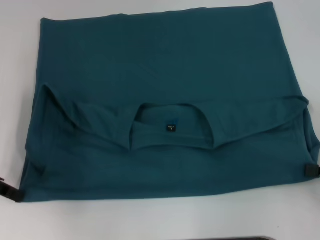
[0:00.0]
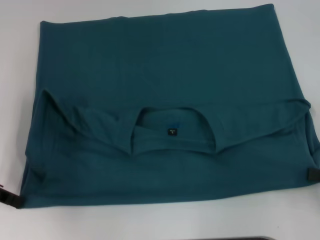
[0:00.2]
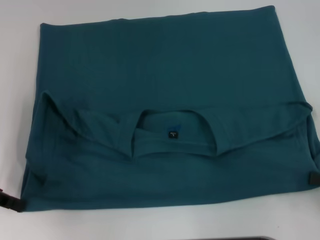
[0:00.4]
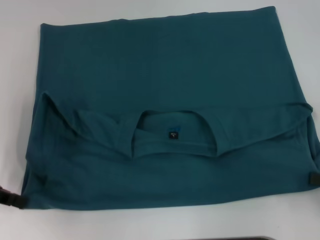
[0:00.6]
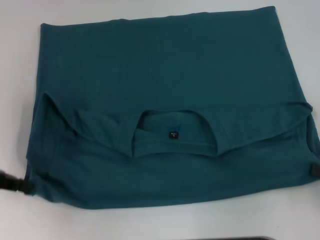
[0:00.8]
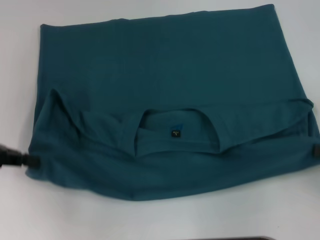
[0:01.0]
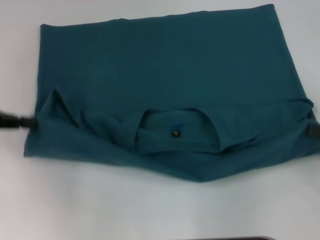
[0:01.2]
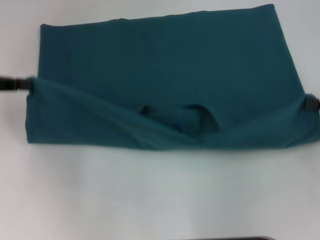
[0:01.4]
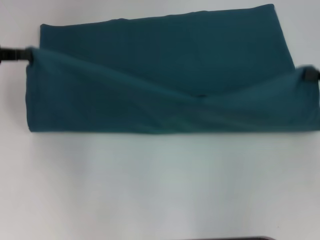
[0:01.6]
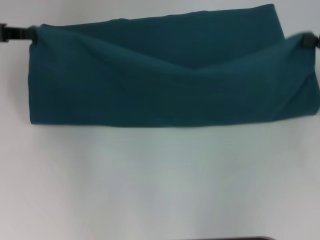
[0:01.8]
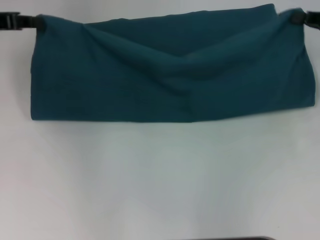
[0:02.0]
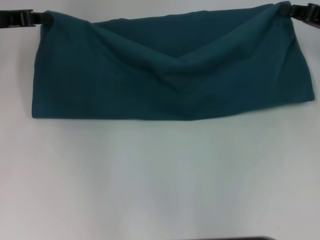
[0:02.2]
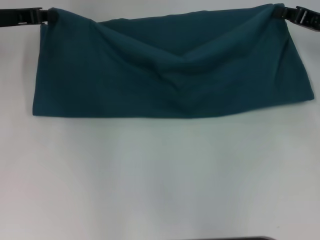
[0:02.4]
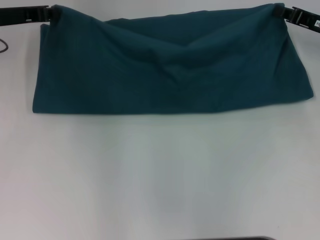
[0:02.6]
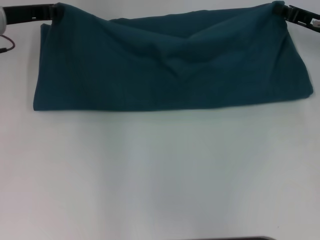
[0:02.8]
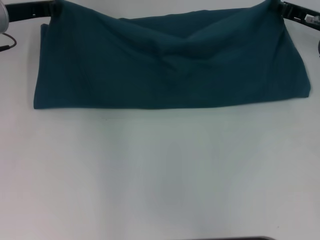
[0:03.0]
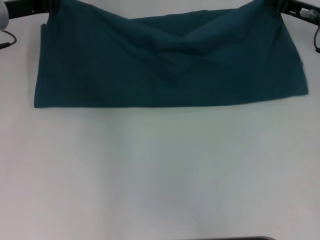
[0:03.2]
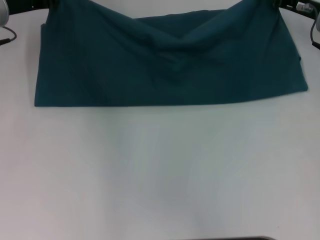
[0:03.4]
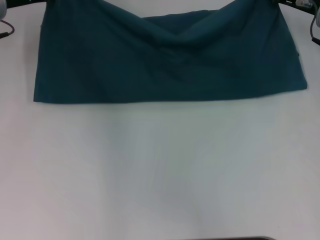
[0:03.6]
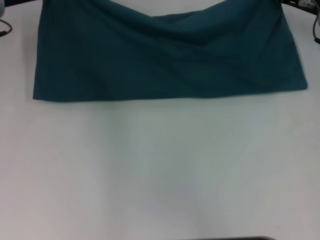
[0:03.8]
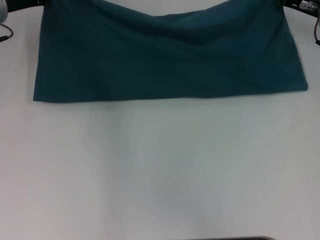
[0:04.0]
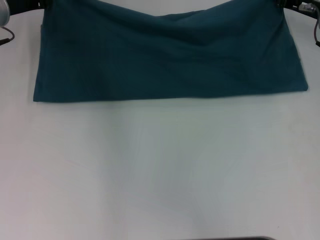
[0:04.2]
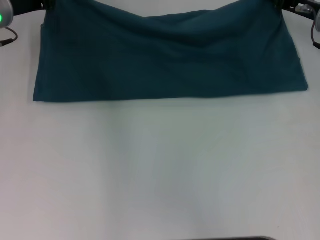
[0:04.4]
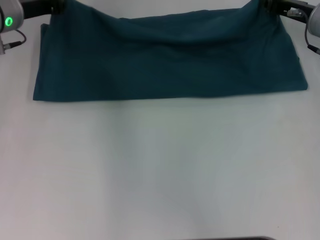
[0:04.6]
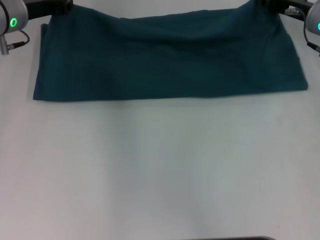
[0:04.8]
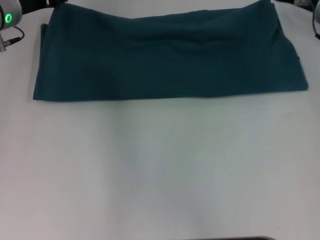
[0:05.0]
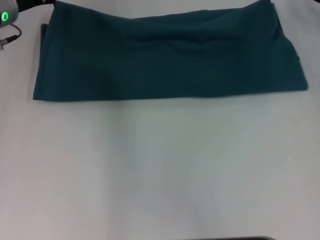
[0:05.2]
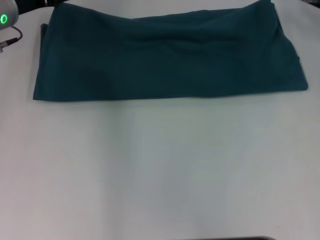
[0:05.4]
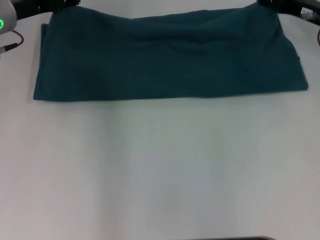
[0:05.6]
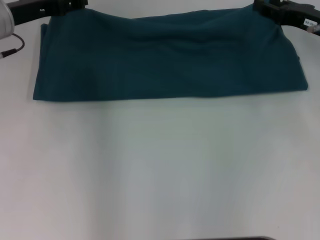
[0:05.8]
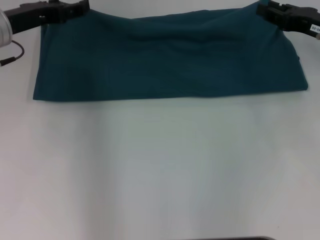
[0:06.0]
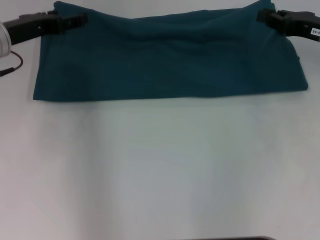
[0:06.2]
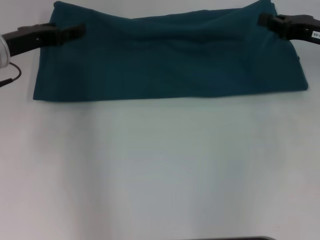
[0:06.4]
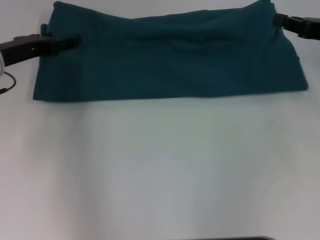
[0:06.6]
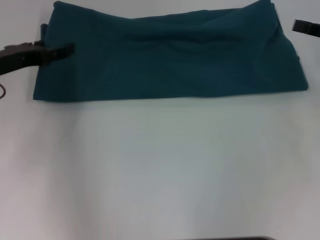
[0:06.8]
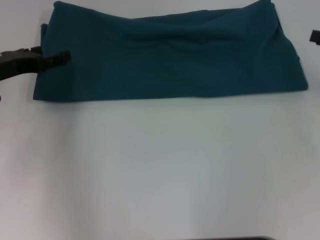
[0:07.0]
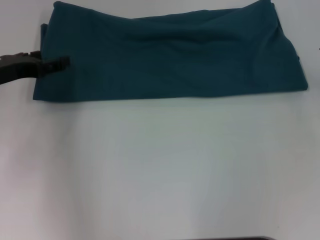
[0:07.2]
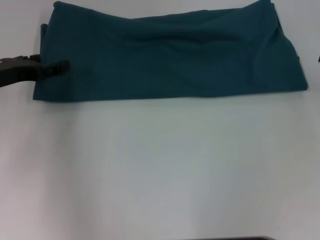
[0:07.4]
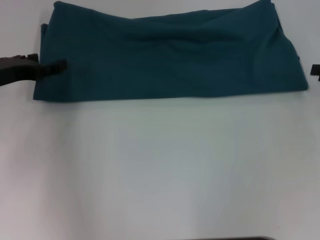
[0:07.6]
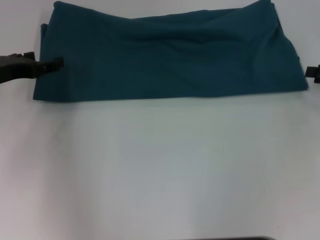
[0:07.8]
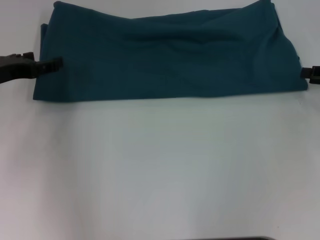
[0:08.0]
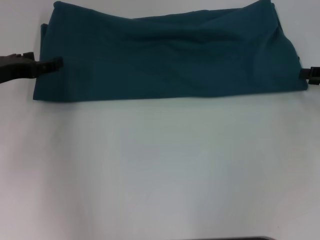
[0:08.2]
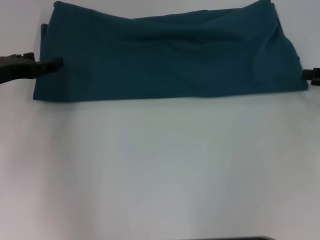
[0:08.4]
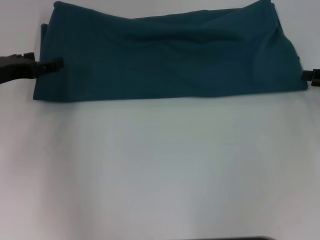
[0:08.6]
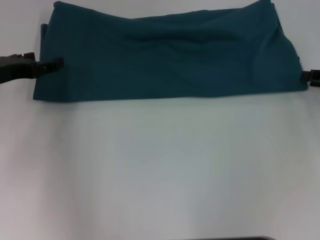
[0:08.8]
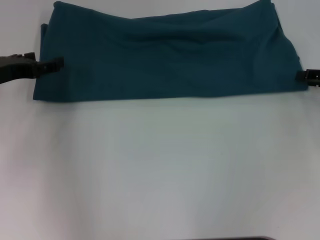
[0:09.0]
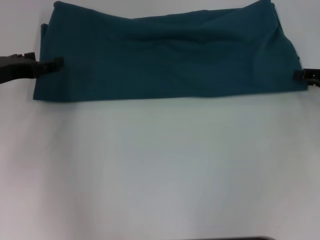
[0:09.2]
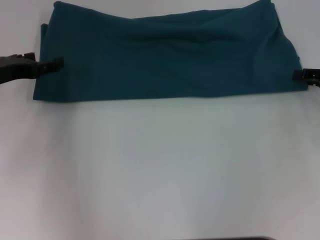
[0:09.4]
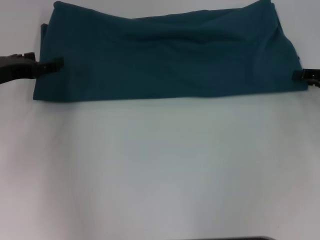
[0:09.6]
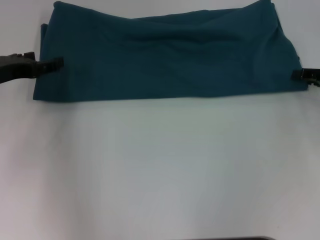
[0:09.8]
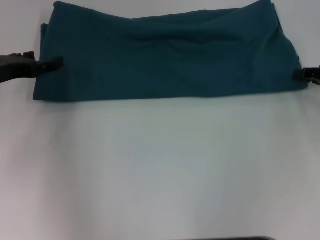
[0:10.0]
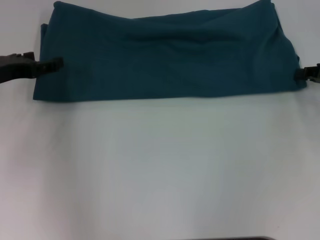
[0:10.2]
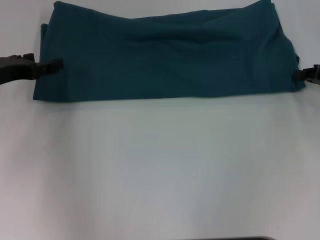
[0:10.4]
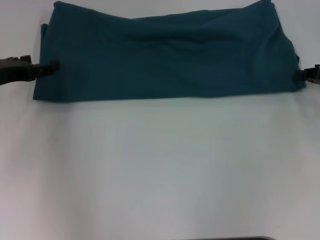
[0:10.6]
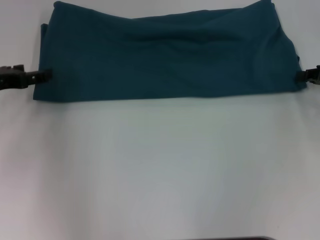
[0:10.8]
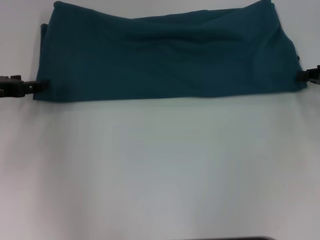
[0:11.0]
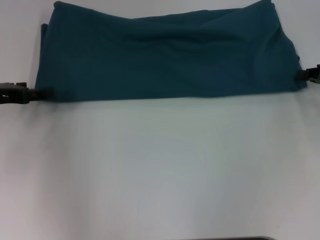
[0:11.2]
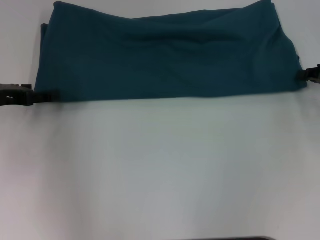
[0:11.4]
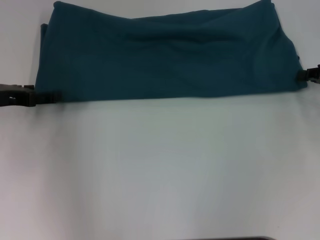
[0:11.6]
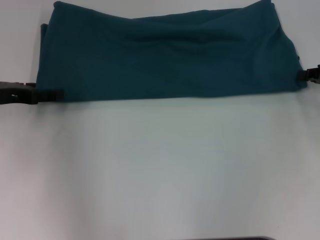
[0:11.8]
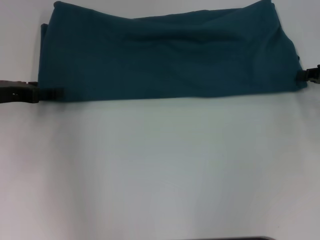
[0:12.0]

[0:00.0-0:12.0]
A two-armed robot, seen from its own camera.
Step, 0:00.0 to 0:05.6: Fold the clothes to the left.
Step, 0:00.0 to 0:05.6: Fold the clothes to the right.
0:00.0 to 0:01.6: The right gripper travels forward and upward by roughly 10 cm. The left gripper is displaced upward and forward by approximately 10 cm.
0:01.6 to 0:03.0: The left gripper travels to the right and forward by roughly 10 cm. Meanwhile the right gripper is displaced forward and to the left by some 15 cm.
0:03.0 to 0:04.4: There are only small adjustments of the grippers.
0:04.4 to 0:06.0: Both grippers move backward, some 5 cm. The right gripper opens; the left gripper opens up.
0:06.0 to 0:07.6: The right gripper is displaced to the right and backward by approximately 10 cm, and closes, then reopens, while the left gripper moves backward, some 5 cm.
0:10.4 to 0:12.0: The grippers move only a little.

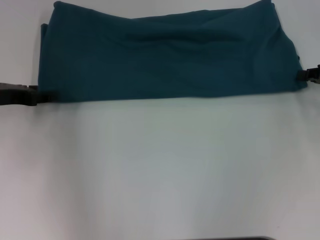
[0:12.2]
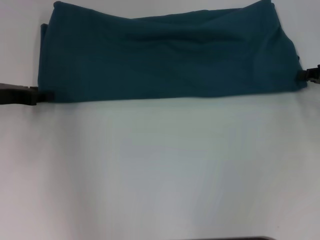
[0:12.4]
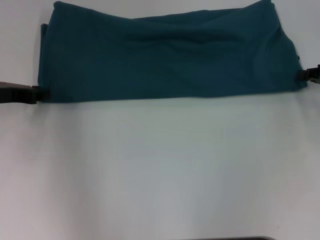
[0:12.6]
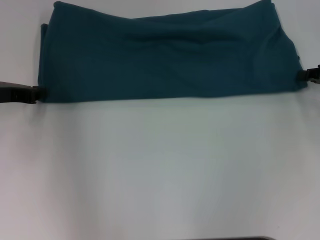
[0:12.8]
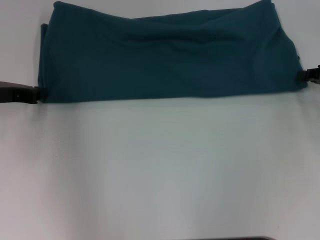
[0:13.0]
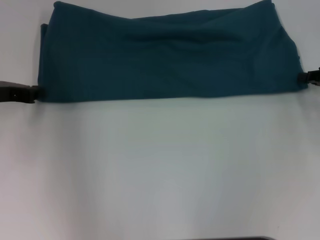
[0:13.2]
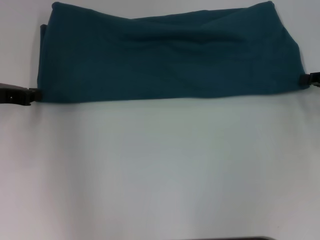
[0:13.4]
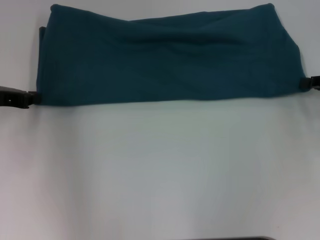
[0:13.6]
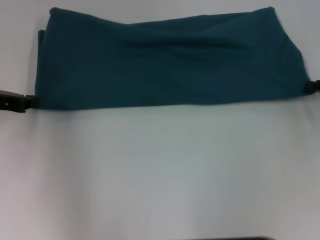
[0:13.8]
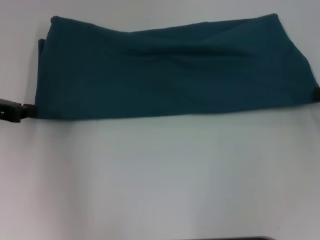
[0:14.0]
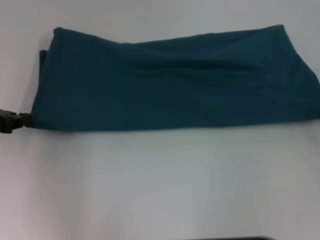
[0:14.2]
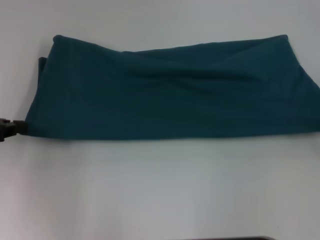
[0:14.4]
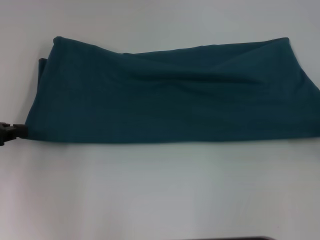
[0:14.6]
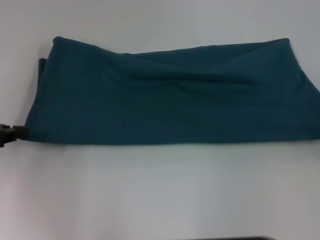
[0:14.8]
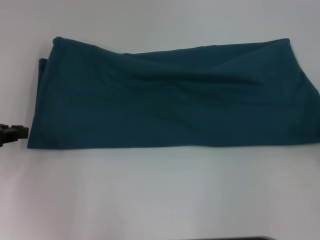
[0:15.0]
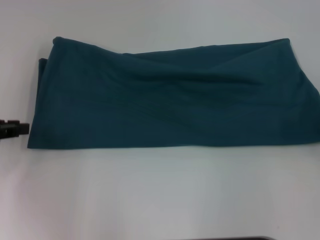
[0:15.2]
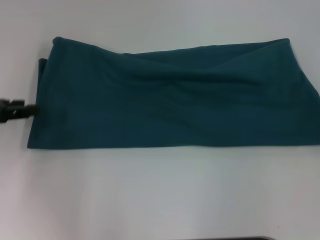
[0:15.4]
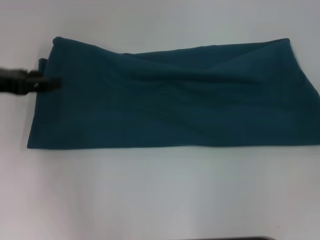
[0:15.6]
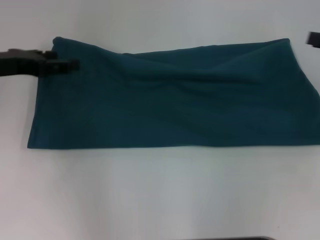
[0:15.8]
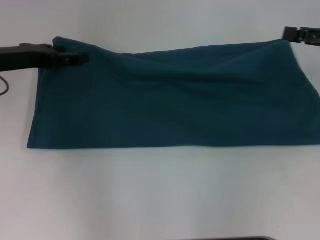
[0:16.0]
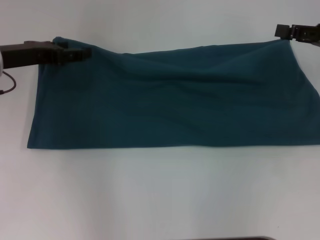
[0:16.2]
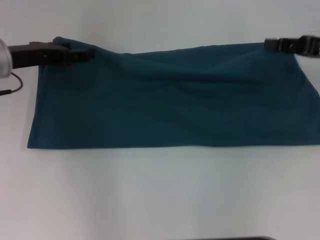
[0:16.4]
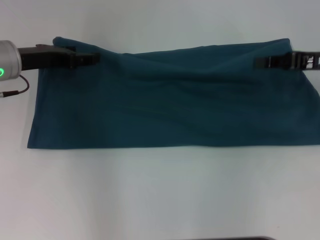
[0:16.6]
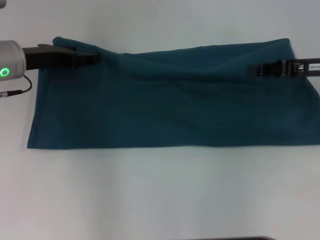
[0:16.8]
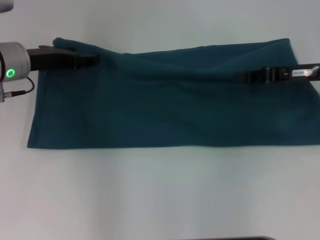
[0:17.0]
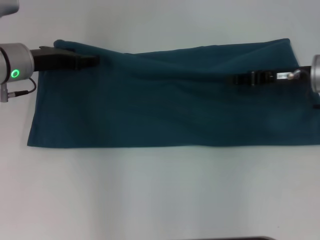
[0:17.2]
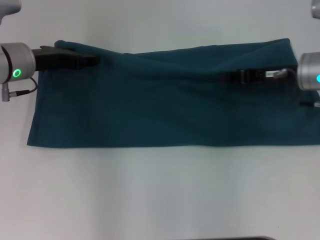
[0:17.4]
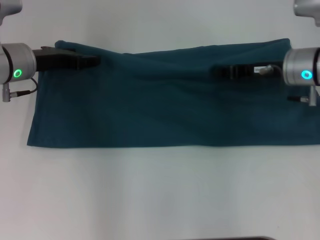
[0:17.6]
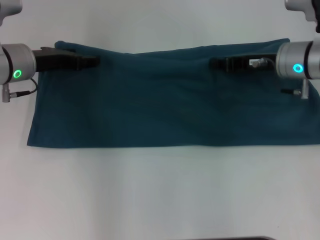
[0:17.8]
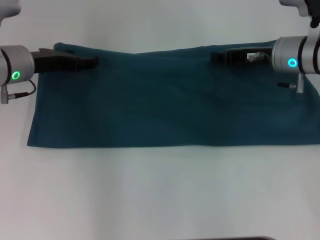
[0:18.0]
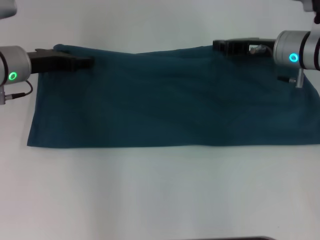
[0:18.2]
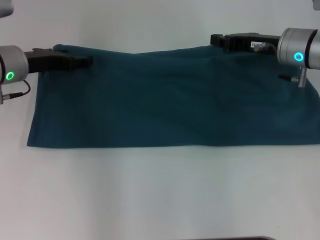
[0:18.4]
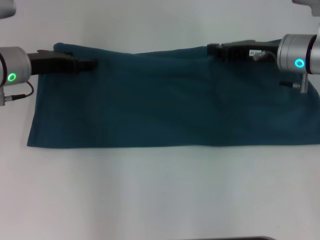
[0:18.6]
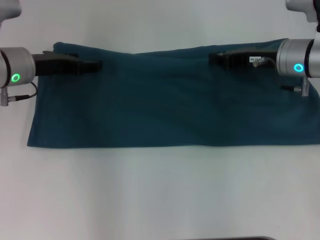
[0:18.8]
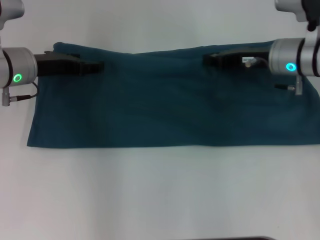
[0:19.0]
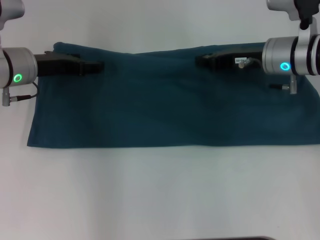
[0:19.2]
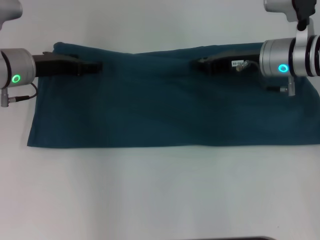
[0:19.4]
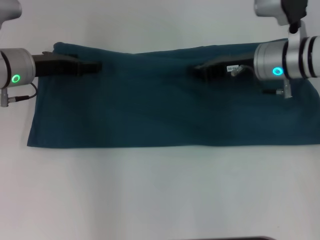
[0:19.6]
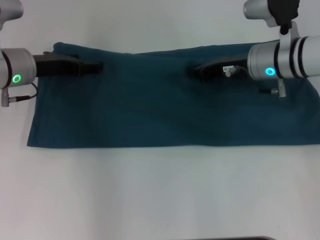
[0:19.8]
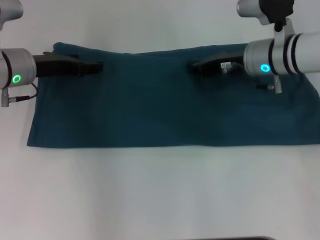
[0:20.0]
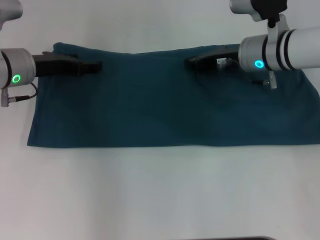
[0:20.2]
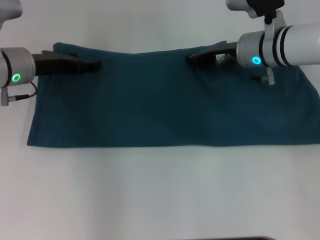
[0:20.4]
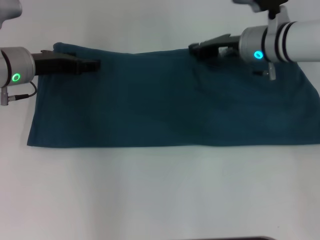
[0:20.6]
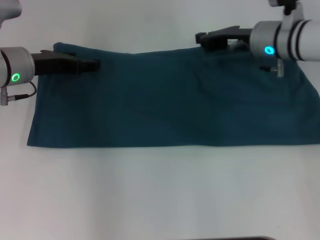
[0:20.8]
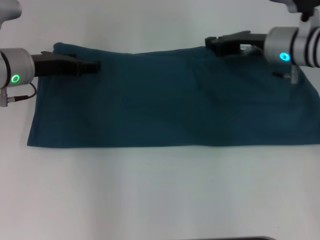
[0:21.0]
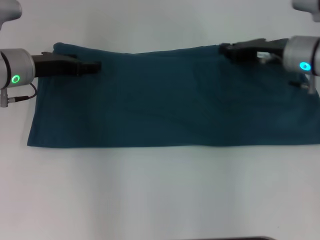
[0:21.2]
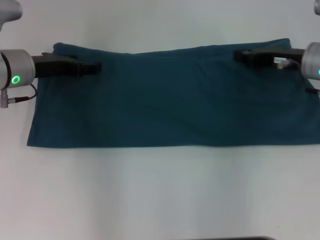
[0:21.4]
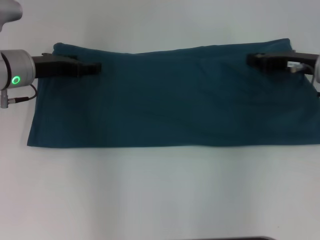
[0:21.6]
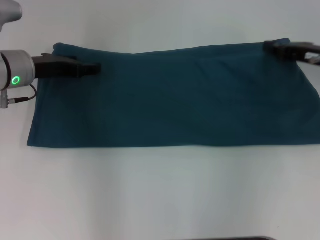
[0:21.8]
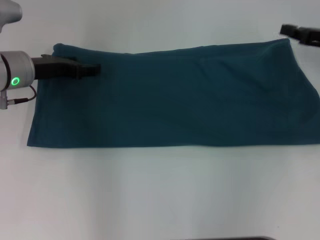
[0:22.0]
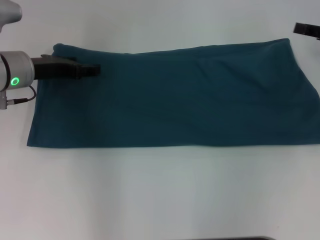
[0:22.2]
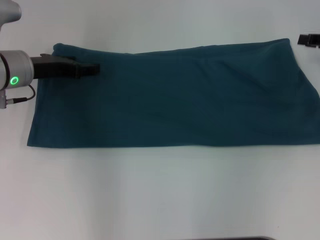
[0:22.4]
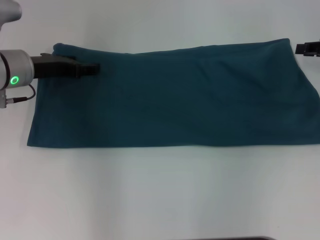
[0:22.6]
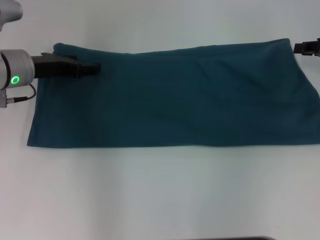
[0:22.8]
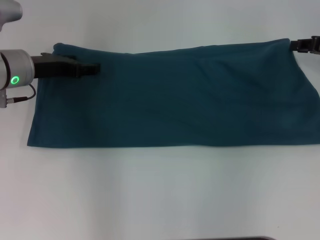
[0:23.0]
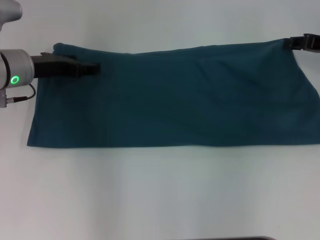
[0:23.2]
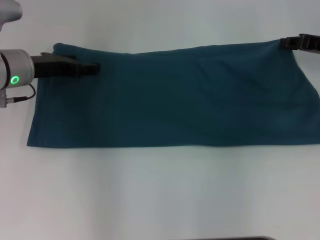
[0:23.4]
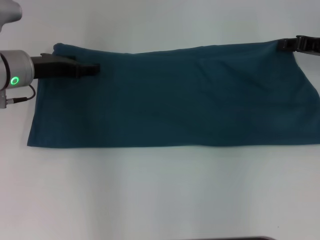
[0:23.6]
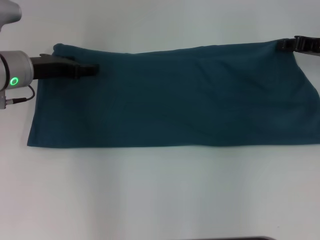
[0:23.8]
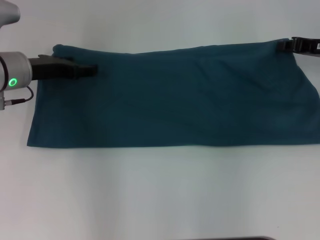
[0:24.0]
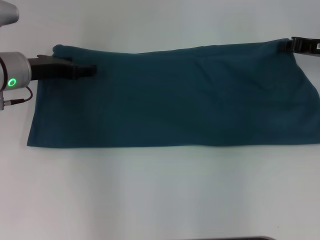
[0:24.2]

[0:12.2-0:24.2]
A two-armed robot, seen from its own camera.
Step, 0:12.2 to 0:15.6: Pull the clothes with your left hand.
Step, 0:12.2 to 0:15.6: Pull the clothes with your right hand.
0:12.2 to 0:13.8: The left gripper closes its fingers.
0:13.8 to 0:15.2: The grippers both shift backward by some 5 cm.
0:15.2 to 0:16.6: The left gripper moves to the right and forward, approximately 15 cm, and opens up; the right gripper shifts approximately 15 cm forward and to the left, and opens, then closes again.
0:16.6 to 0:18.2: The right gripper is displaced to the left and forward by roughly 10 cm.
0:18.2 to 0:19.8: The grippers stay close to where they were, moving slightly.
0:19.8 to 0:21.2: The right gripper goes some 5 cm to the right.
0:21.2 to 0:22.6: The right gripper travels to the right by approximately 10 cm.
0:22.6 to 0:24.2: The grippers move only a little.
